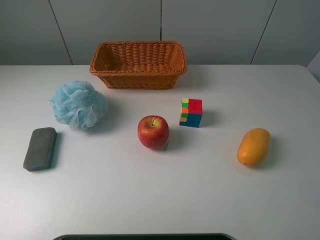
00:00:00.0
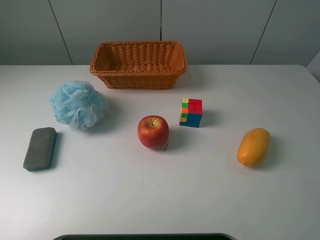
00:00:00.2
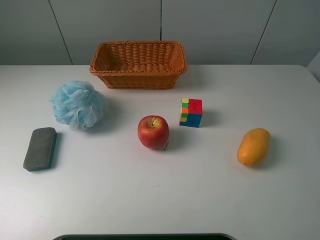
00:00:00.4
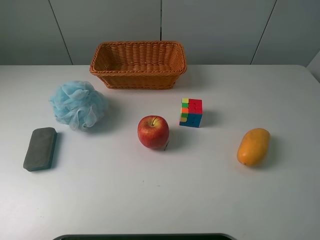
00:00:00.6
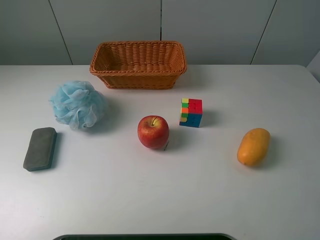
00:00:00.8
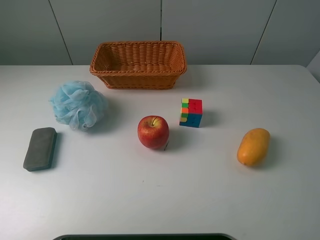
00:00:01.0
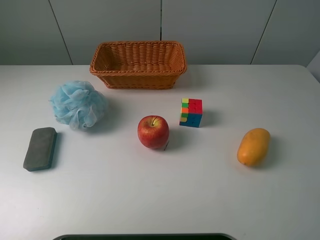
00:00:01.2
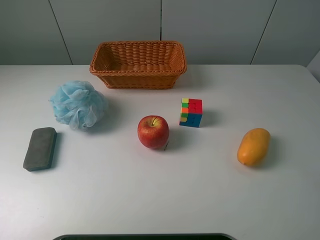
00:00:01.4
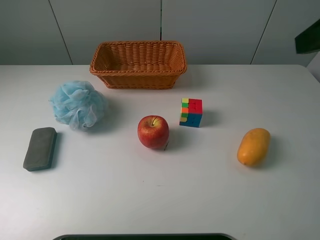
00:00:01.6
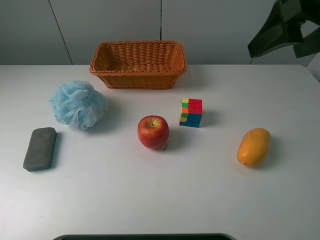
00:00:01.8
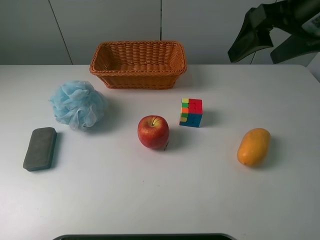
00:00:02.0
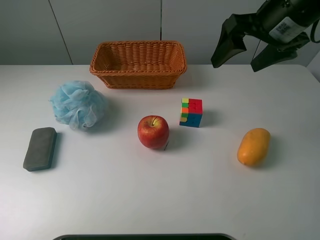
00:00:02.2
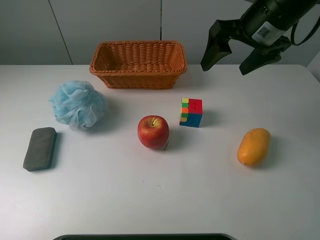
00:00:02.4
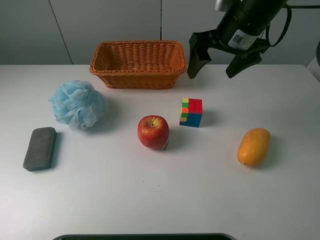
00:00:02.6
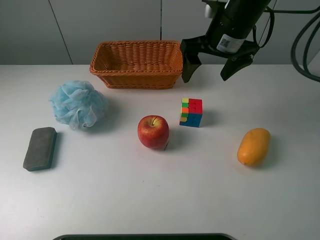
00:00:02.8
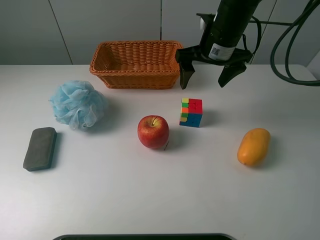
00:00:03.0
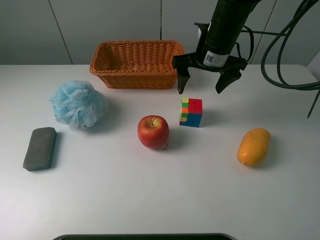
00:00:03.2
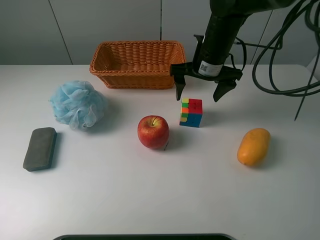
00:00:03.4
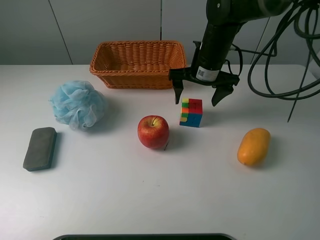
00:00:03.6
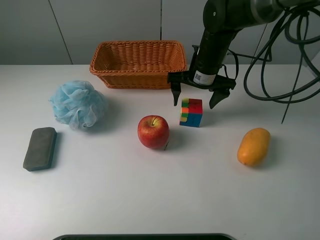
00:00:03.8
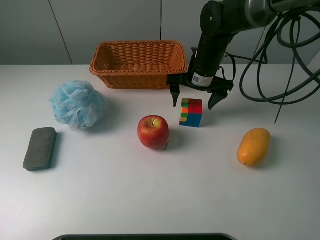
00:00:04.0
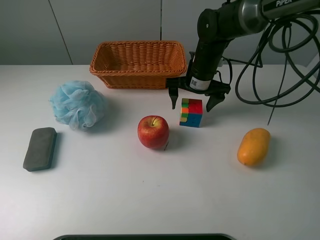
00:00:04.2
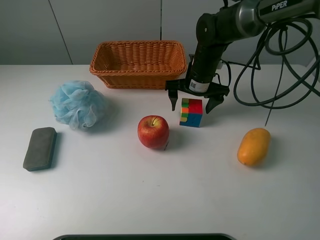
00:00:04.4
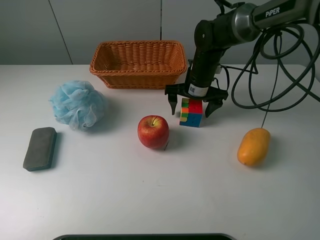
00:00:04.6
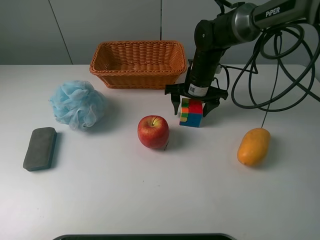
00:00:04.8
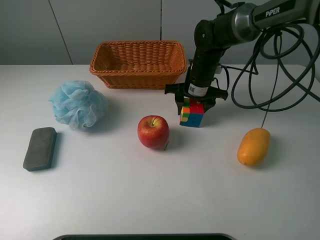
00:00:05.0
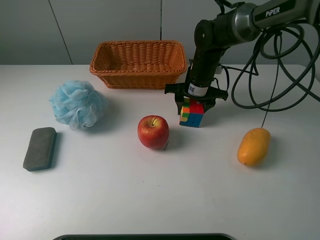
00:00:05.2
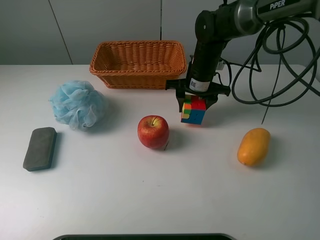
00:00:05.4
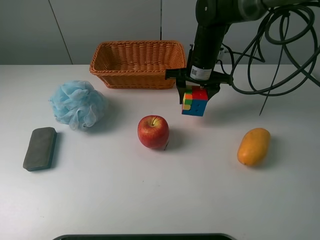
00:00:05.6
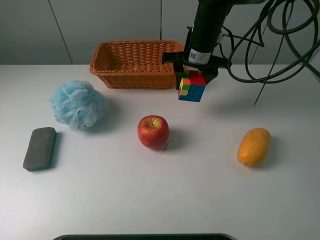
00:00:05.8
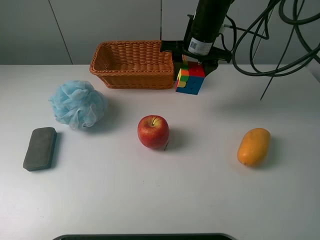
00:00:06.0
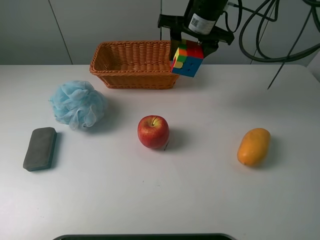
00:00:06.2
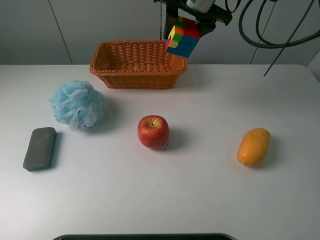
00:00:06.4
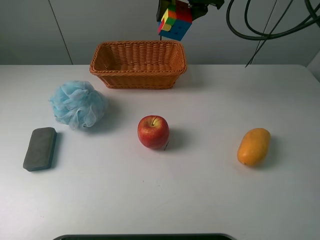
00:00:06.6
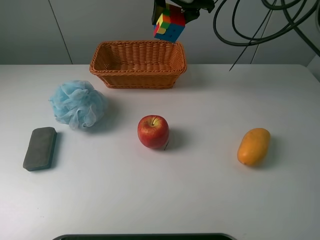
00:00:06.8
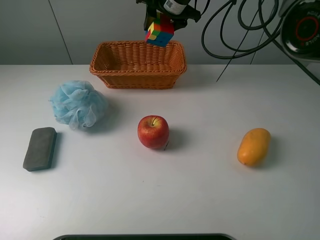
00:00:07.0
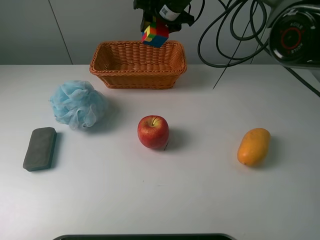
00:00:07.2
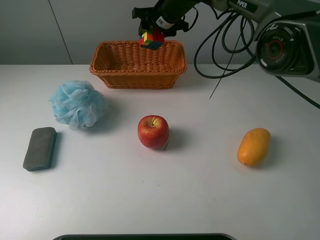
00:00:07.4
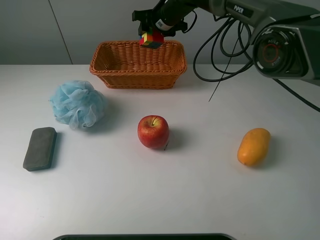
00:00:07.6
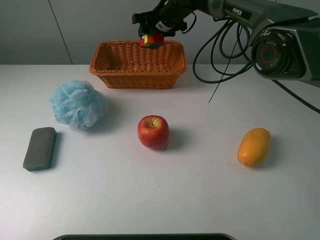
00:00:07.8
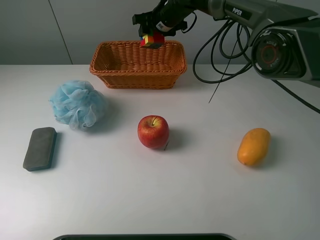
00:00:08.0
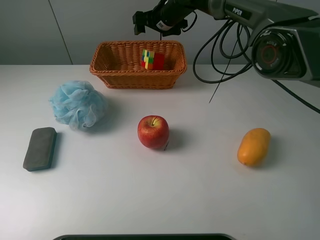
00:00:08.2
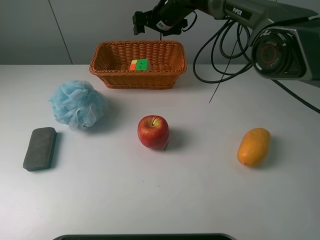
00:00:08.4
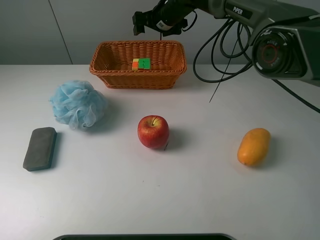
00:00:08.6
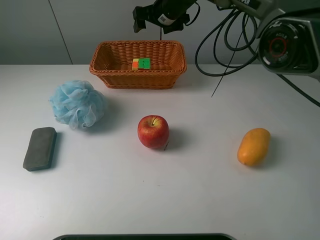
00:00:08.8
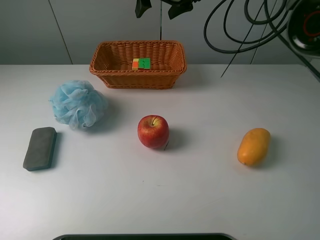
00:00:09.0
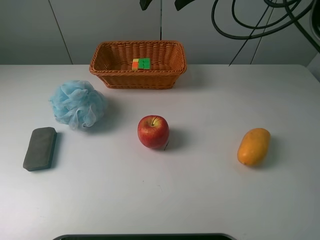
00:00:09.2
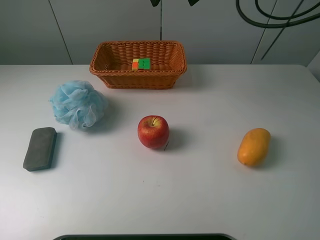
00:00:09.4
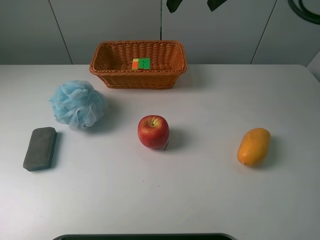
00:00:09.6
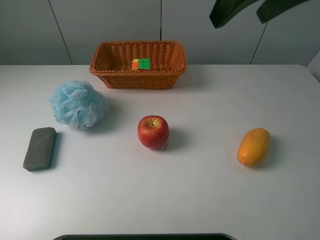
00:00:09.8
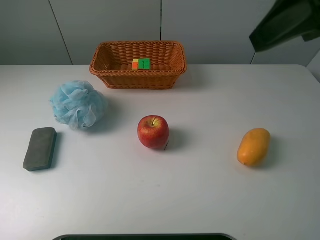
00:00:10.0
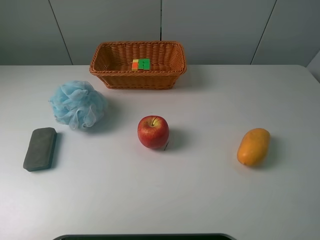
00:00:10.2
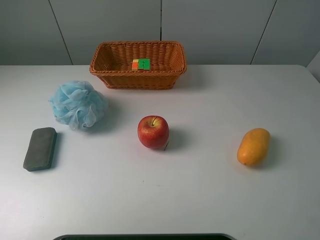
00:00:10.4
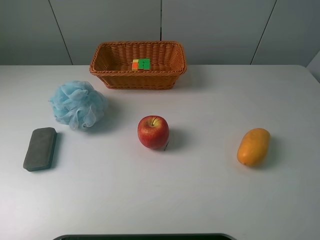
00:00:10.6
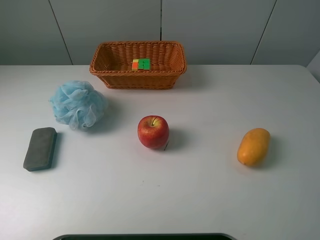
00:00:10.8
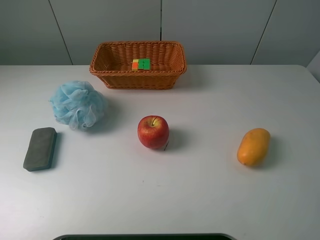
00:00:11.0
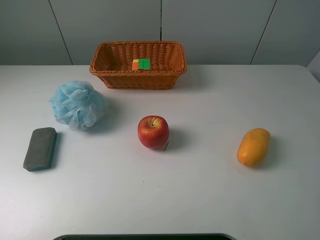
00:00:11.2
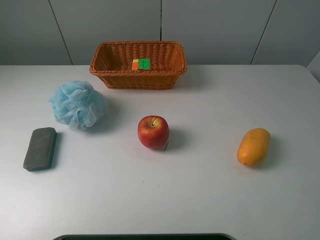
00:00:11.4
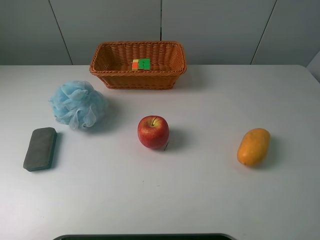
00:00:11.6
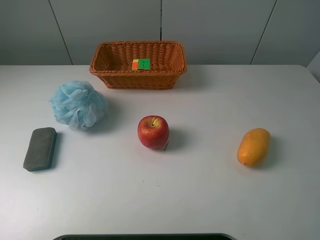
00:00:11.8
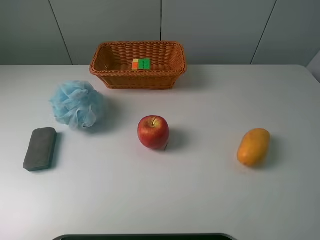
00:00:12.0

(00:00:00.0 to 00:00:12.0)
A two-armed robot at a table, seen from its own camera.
Task of the whole recording: use a picker to grab the item closest to the apple and place it in the basket.
Step, 00:00:00.0 - 00:00:05.2: Grasp the Rubik's Cube with the right gripper.
Step, 00:00:05.4 - 00:00:08.4: Place the Rubik's Cube into the basket with the right gripper.
00:00:00.0 - 00:00:01.6: The right gripper heads forward and upward, covering roughly 20 cm.
00:00:01.6 - 00:00:03.0: The right gripper is displaced forward, downward and to the left by roughly 25 cm.
00:00:03.0 - 00:00:04.4: The right gripper heads downward, covering some 10 cm.
00:00:04.4 - 00:00:06.0: The right gripper heads upward, covering roughly 10 cm, and closes.
00:00:06.0 - 00:00:07.6: The right gripper shifts about 15 cm forward and to the left.
00:00:07.6 - 00:00:09.0: The right gripper shifts approximately 10 cm upward, and opens its fingers.
00:00:09.0 - 00:00:10.4: The right gripper heads backward and to the right, covering some 50 cm.
